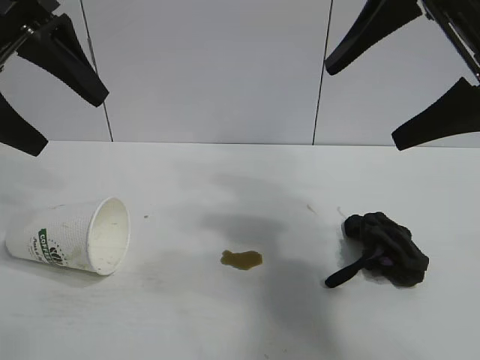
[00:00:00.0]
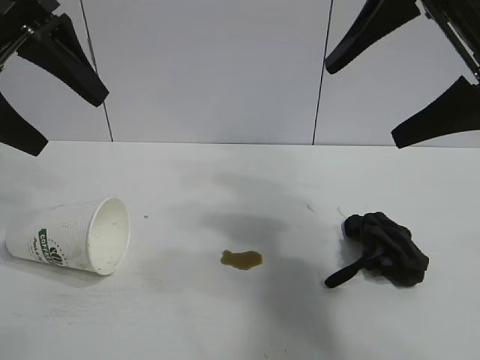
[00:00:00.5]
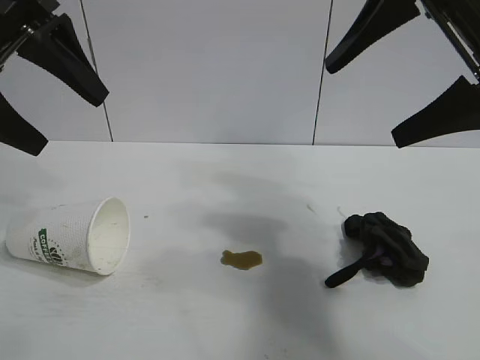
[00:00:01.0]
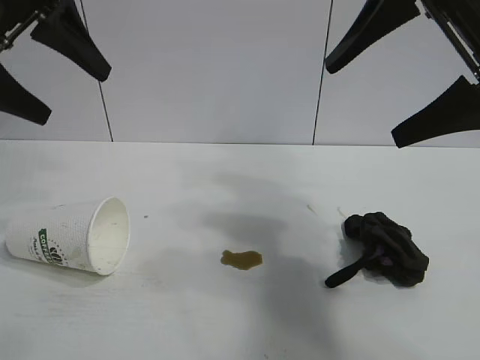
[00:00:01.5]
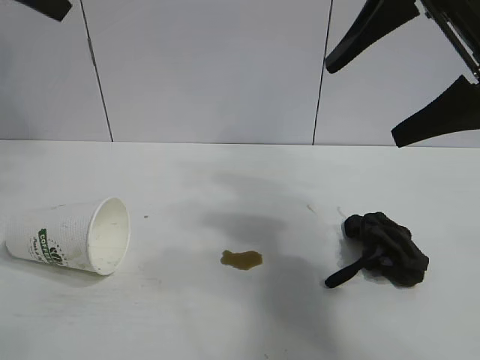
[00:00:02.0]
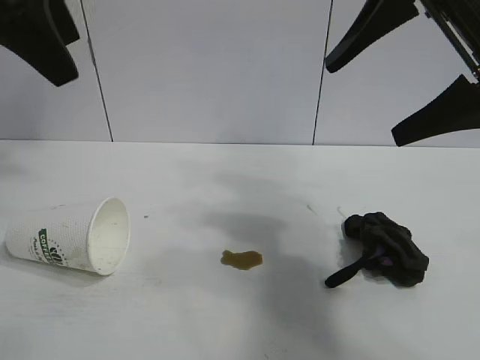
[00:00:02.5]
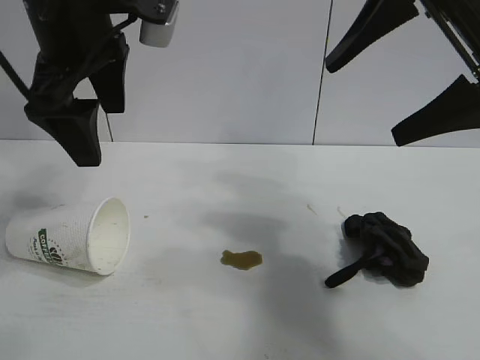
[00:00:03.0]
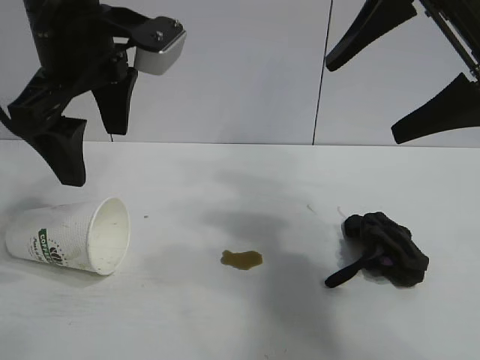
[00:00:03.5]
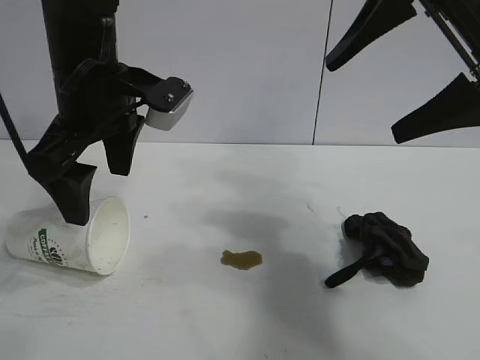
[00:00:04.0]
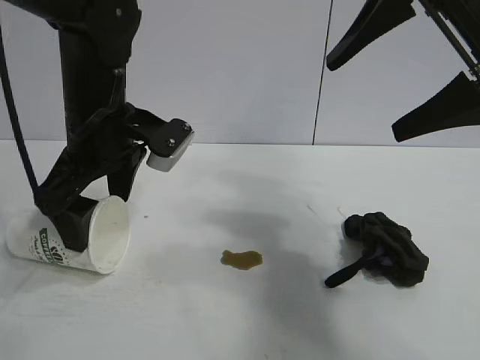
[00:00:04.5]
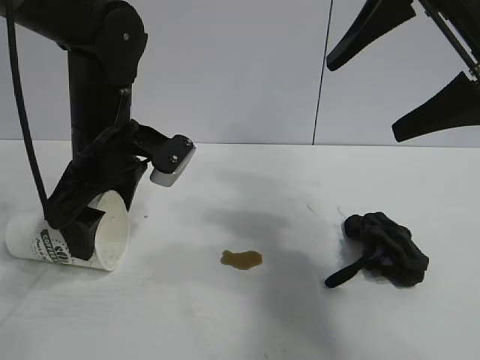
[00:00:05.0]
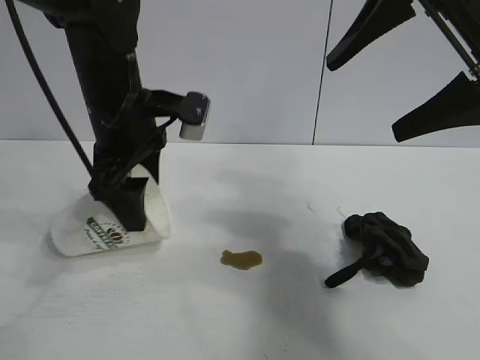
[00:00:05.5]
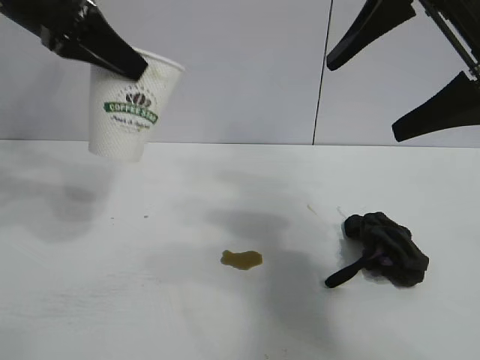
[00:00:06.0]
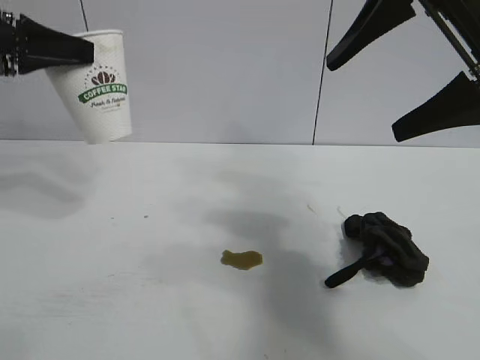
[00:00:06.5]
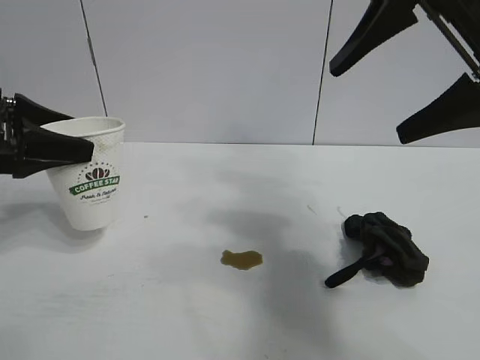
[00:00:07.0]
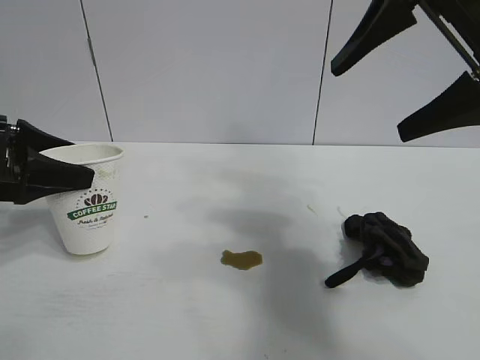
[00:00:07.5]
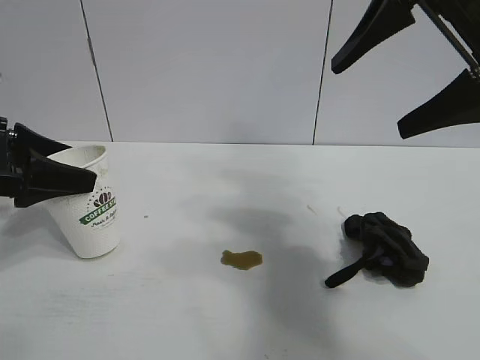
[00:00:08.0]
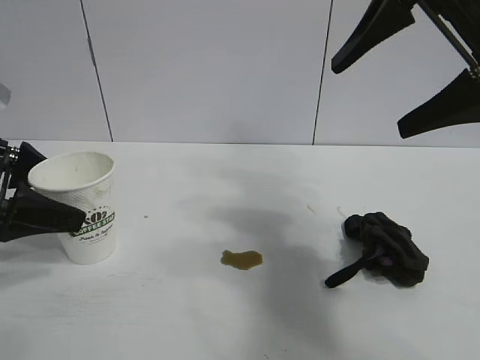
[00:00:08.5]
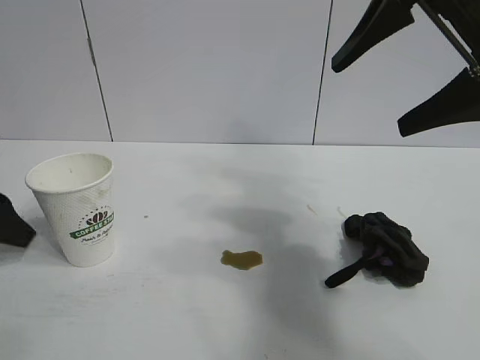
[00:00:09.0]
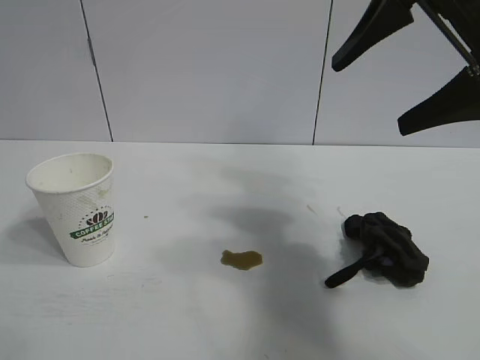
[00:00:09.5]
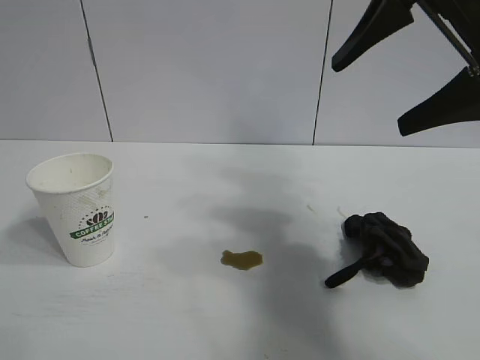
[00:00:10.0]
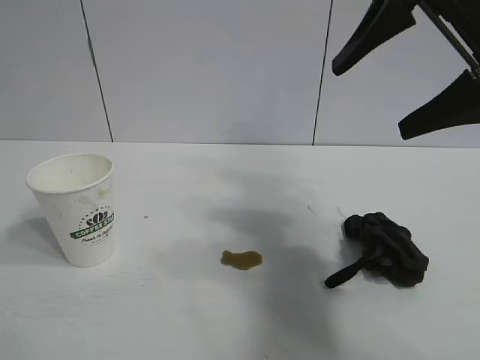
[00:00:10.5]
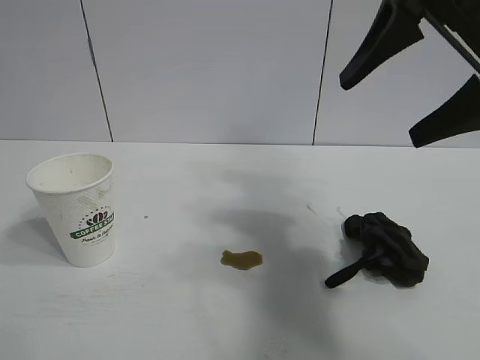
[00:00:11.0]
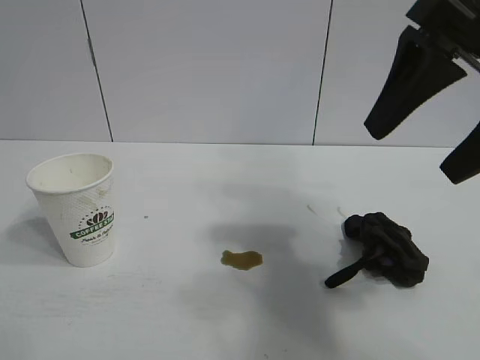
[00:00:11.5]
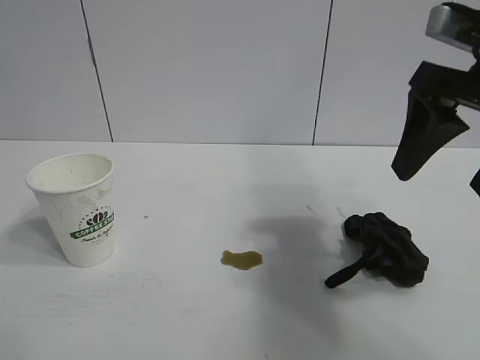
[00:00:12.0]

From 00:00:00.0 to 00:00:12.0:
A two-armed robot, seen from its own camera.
Task of the whole recording: the left gripper pick up the fallen cup and place it upright, the right gripper grasp the black rag and wipe the stain on the table, the right gripper put the black rag back in its original position.
Step, from 00:00:01.5 to 00:00:05.0: Grasp the paper cup with left gripper.
Step, from 00:00:05.5 to 00:00:08.0: Stand the paper cup upright with left gripper.

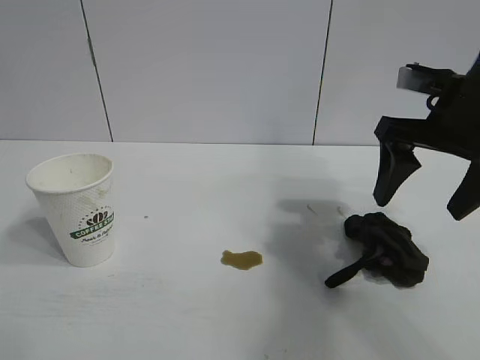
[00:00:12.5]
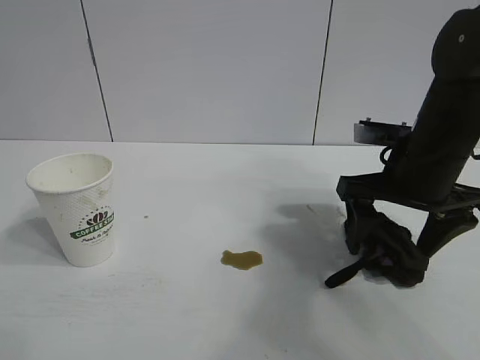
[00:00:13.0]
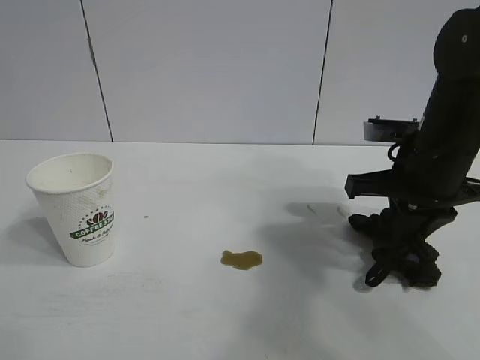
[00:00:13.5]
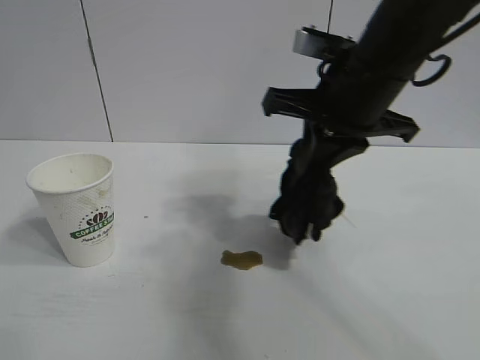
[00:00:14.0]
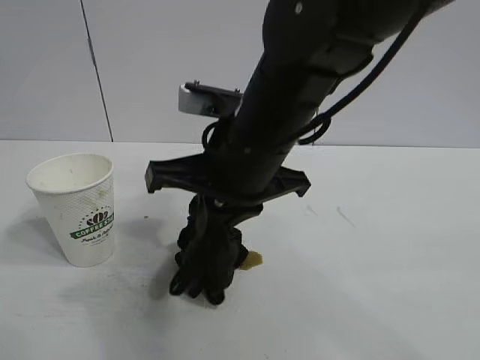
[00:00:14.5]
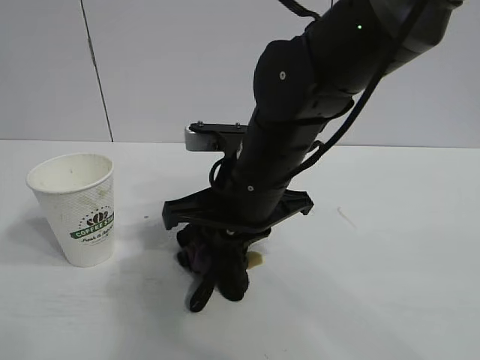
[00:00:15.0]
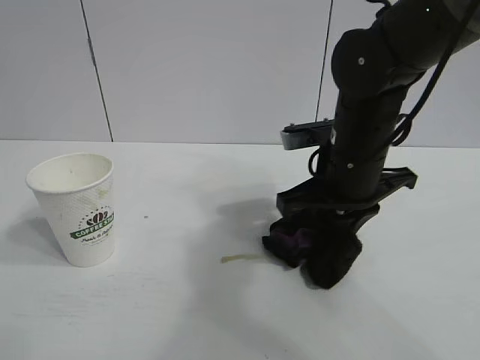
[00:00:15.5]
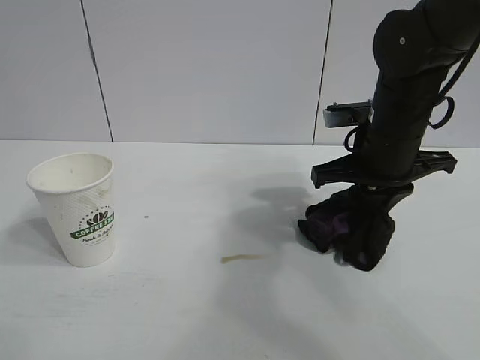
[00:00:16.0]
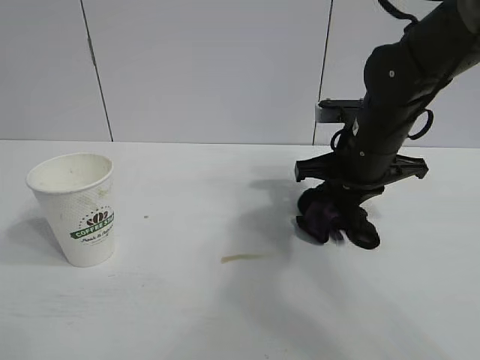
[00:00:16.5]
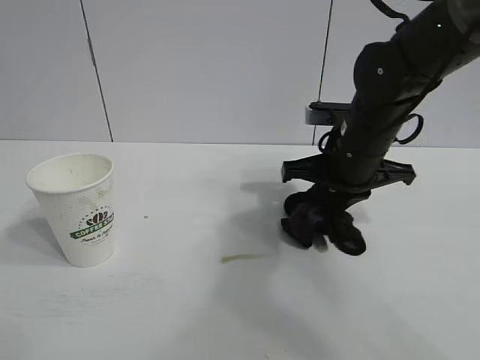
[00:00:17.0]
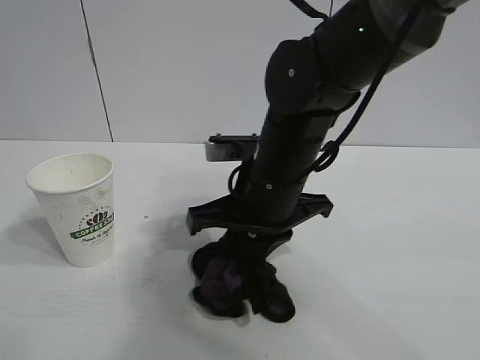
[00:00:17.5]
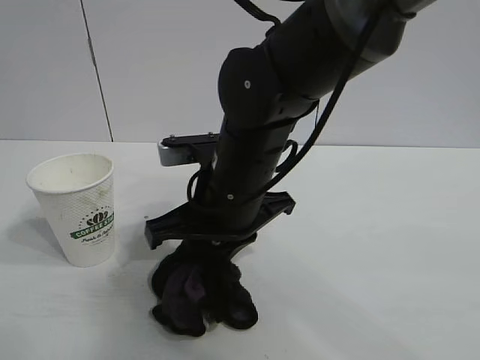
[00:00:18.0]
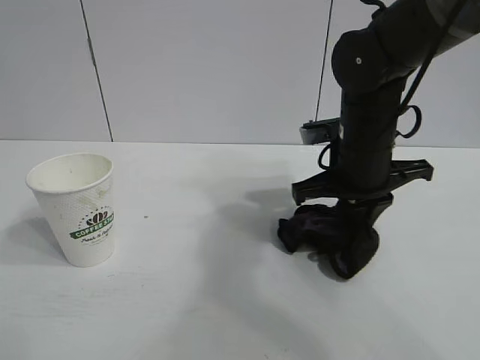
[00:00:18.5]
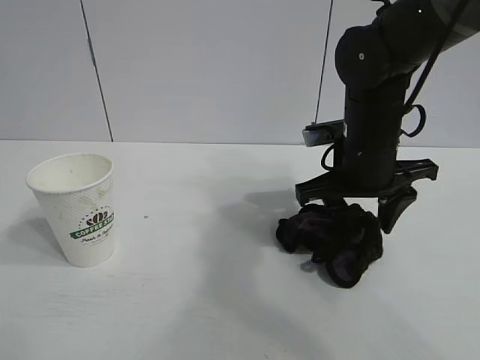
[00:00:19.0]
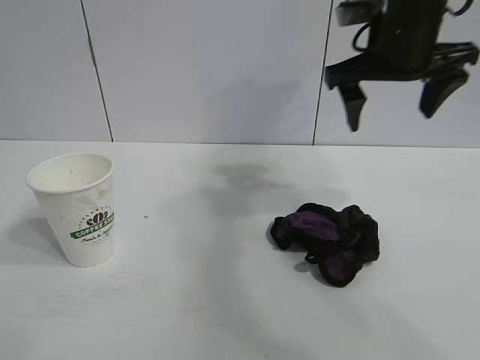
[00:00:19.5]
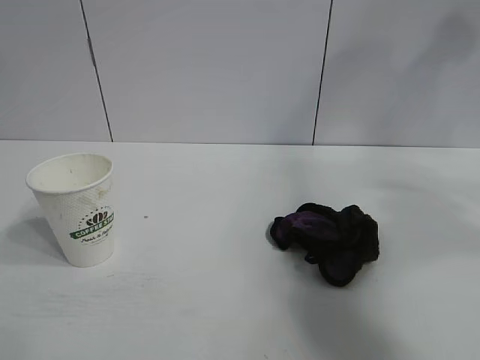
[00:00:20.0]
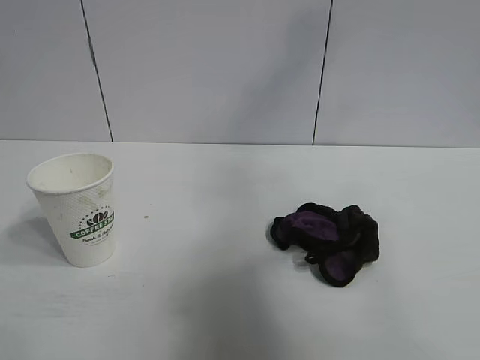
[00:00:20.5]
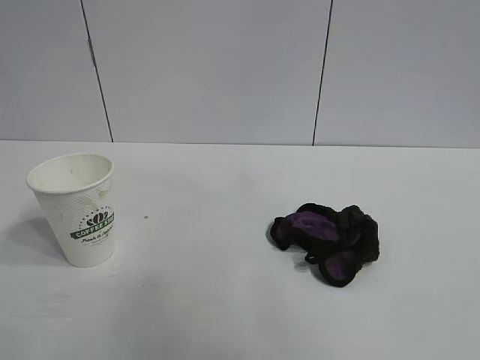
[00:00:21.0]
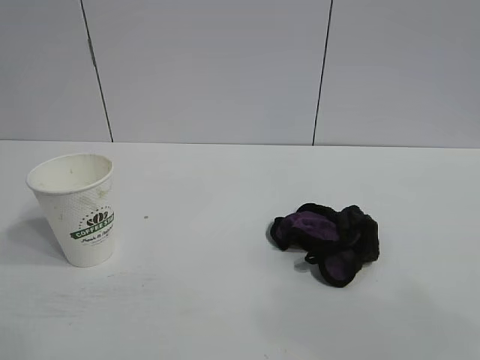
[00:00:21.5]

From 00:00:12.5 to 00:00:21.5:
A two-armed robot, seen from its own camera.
Task of the whole recording: the left gripper pick up the fallen cup and place it upright, the right gripper grasp the black rag and wipe the stain on the table, the right gripper put the black rag back in its original position.
Step, from 00:00:13.5 to 00:00:18.5: Wipe the stains off the table with the rag with right gripper.
